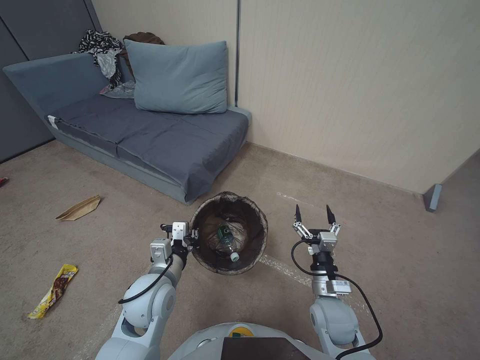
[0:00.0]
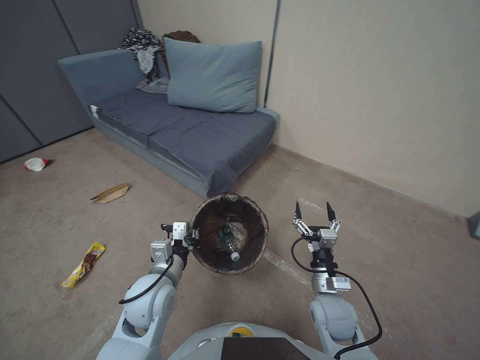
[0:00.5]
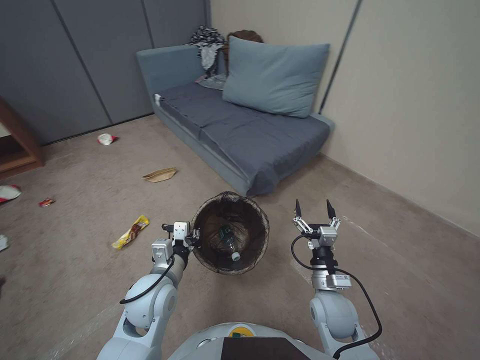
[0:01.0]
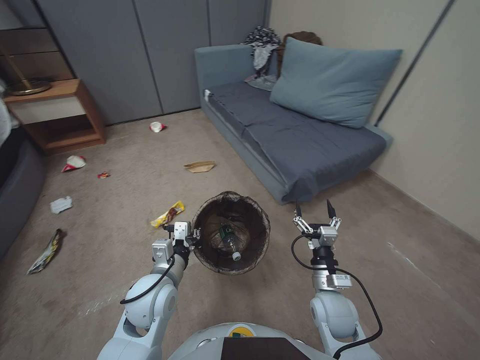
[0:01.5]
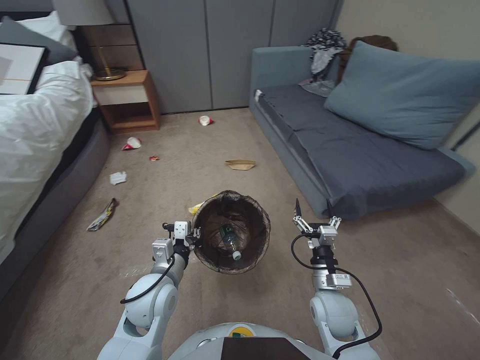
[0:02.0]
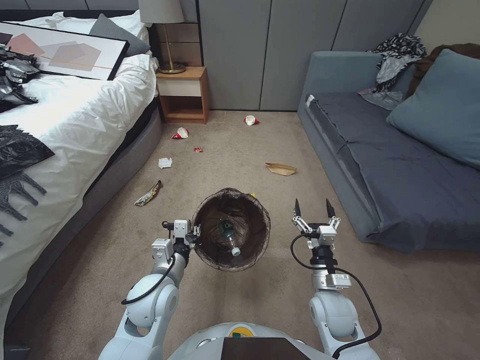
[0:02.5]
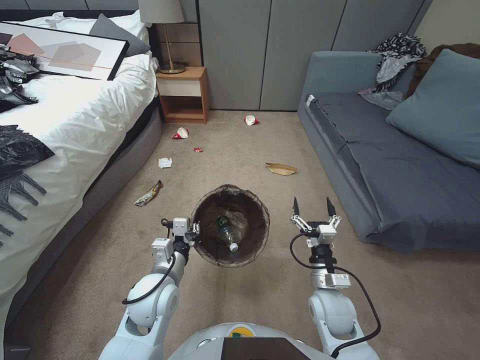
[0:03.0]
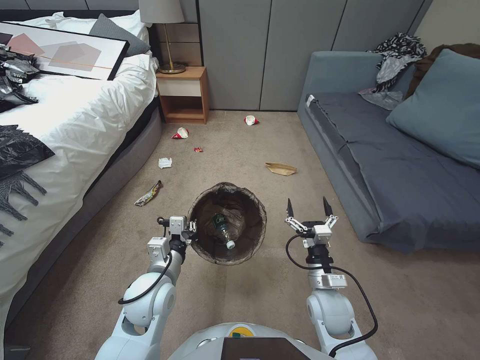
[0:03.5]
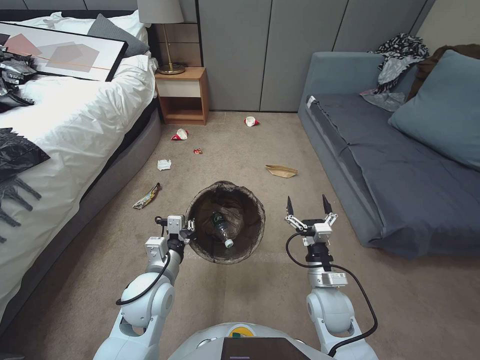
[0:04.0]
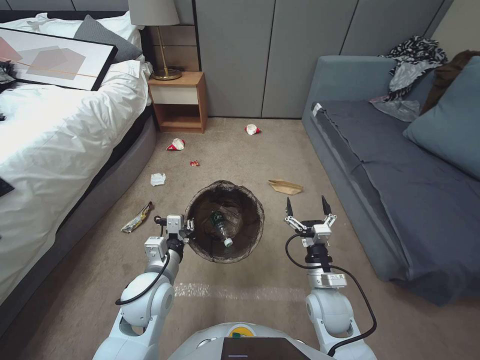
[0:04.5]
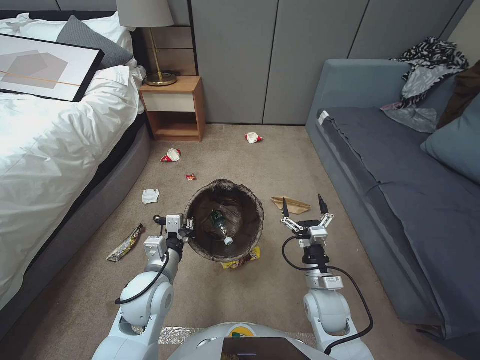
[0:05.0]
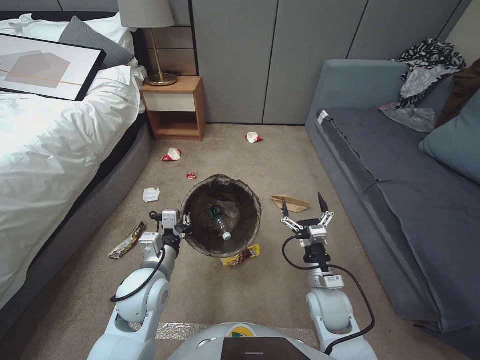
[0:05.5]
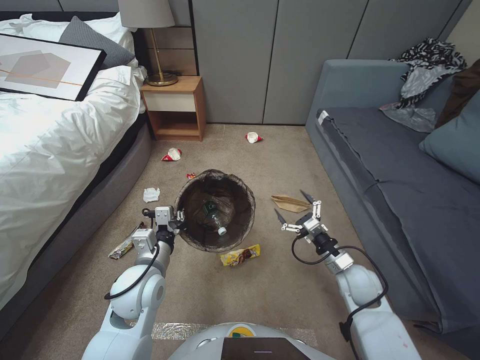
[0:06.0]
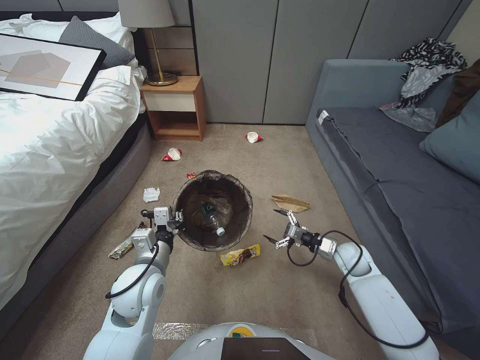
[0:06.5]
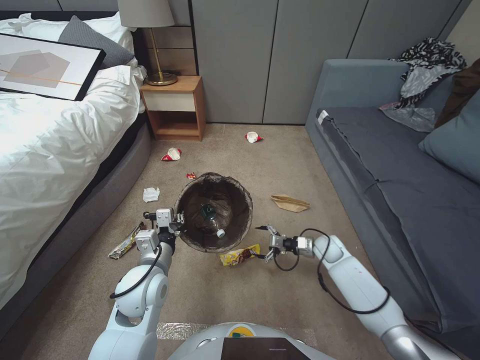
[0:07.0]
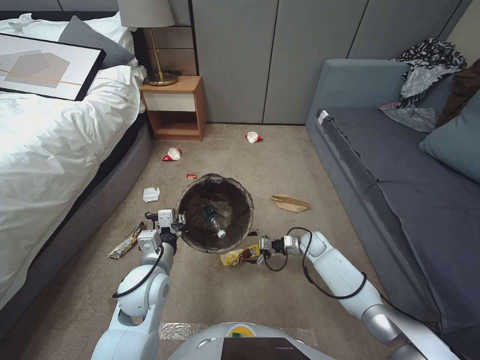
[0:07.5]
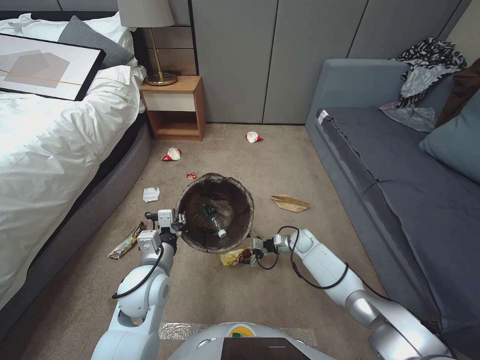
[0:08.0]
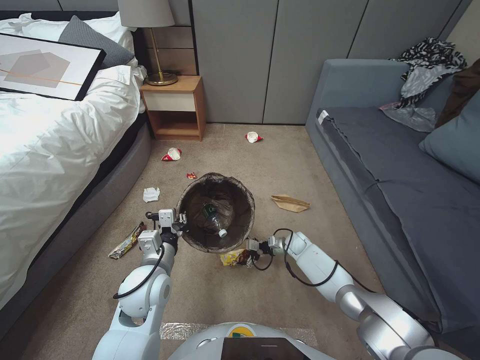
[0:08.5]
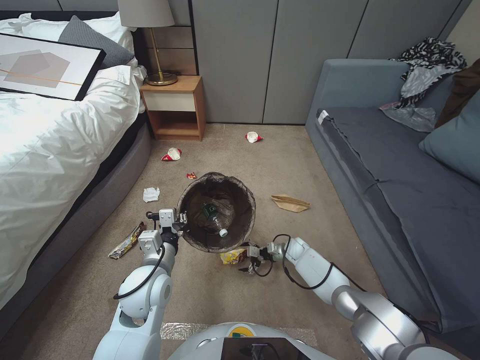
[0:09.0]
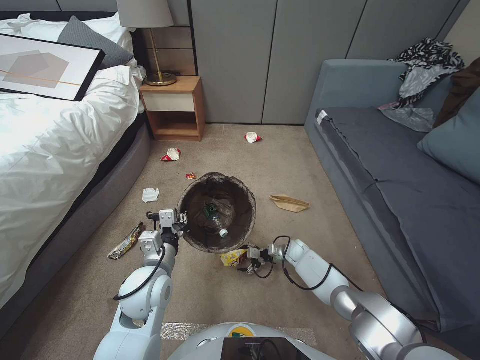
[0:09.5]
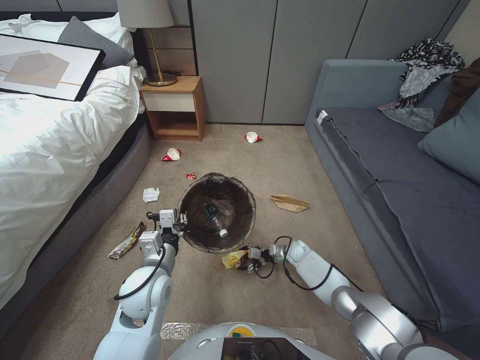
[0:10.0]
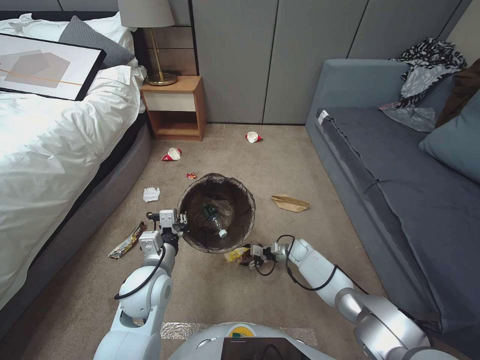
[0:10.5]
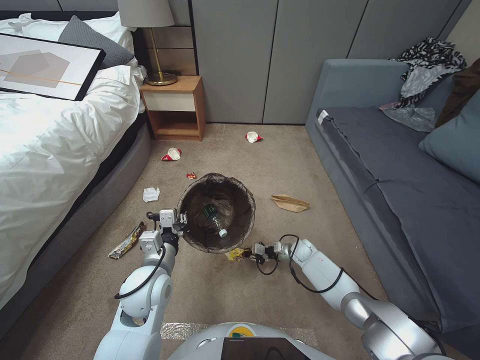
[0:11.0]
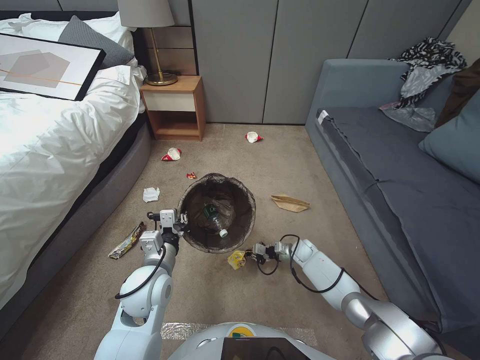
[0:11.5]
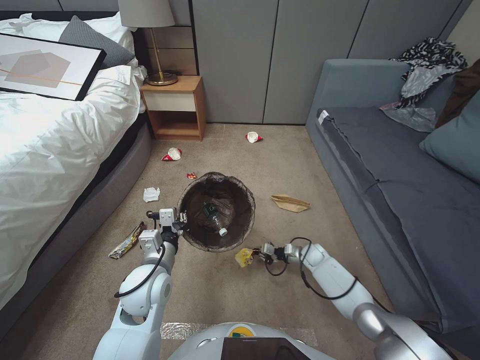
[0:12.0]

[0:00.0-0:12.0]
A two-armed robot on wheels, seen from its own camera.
Task of the whole recording: Pick up the trash bin, then pick up the garbage from the floor and place it into the trash bin.
0:04.0 to 0:06.0: The right gripper moves to the right, roughly 10 cm.
0:06.0 to 0:08.0: The right gripper moves forward and downward, approximately 20 cm.
0:08.0 to 0:10.0: The right gripper goes roughly 10 cm downward.
0:10.0 to 0:12.0: The right gripper closes its fingers.

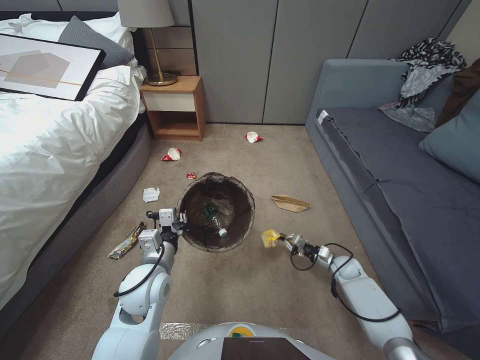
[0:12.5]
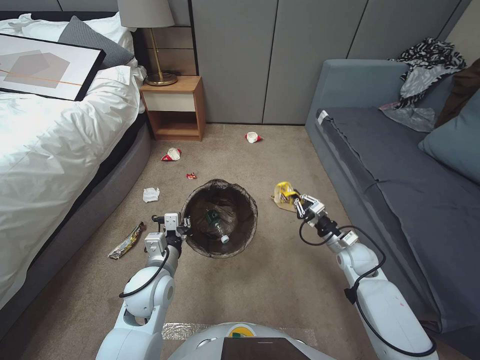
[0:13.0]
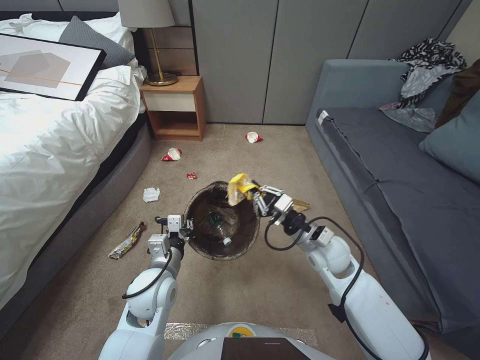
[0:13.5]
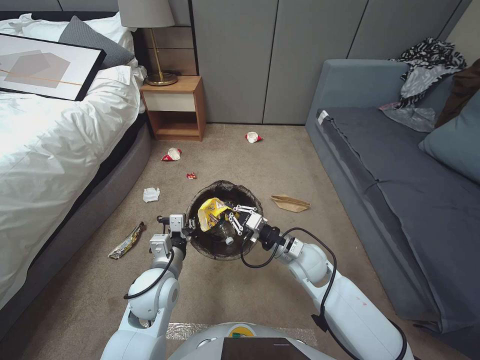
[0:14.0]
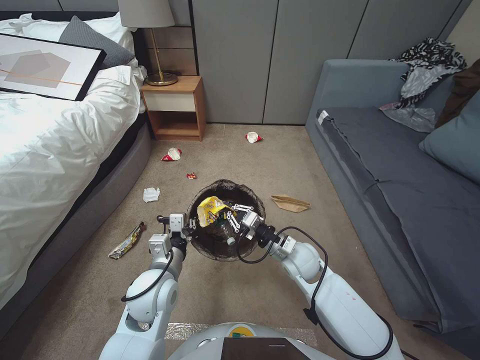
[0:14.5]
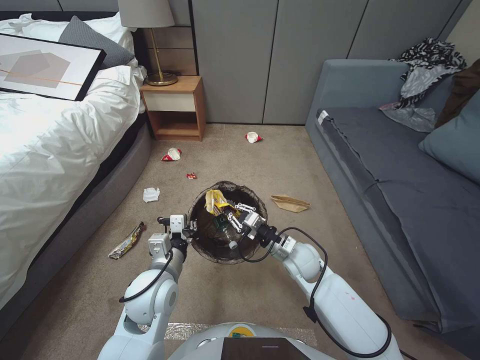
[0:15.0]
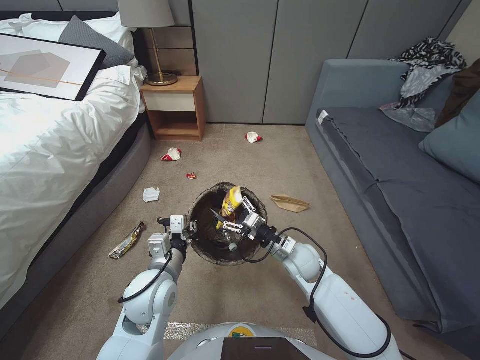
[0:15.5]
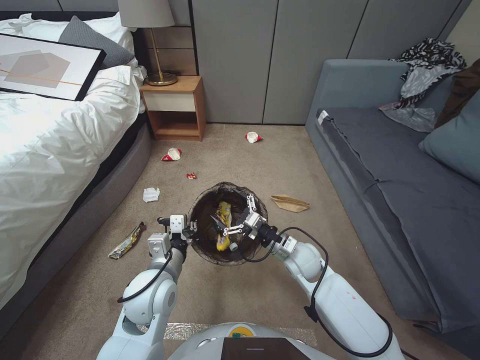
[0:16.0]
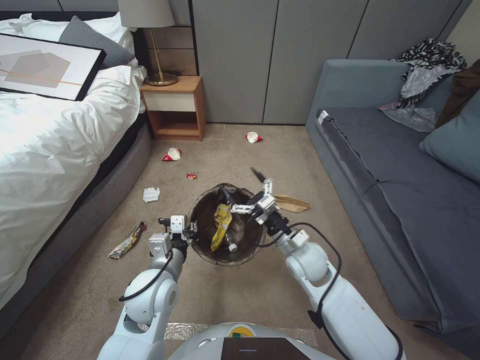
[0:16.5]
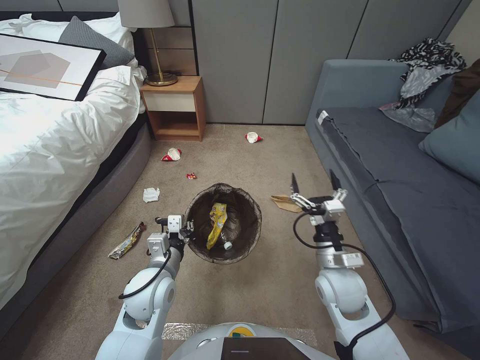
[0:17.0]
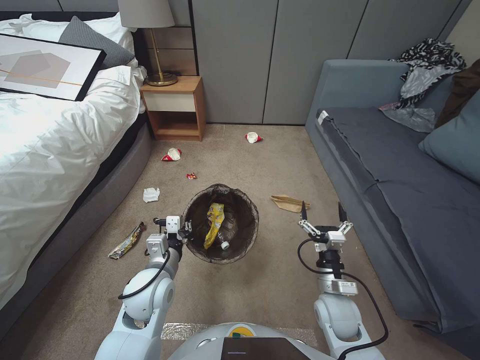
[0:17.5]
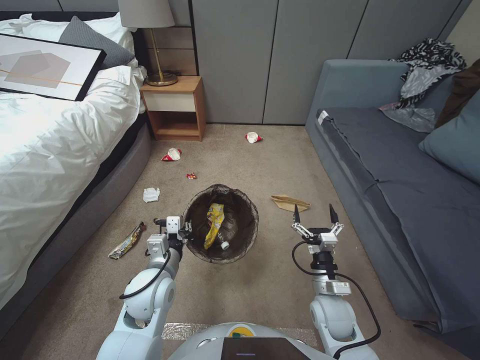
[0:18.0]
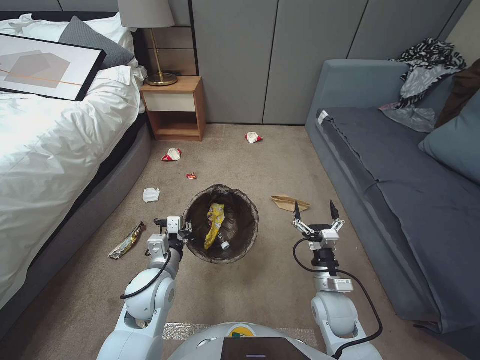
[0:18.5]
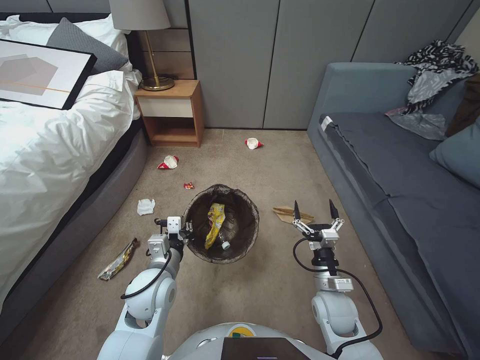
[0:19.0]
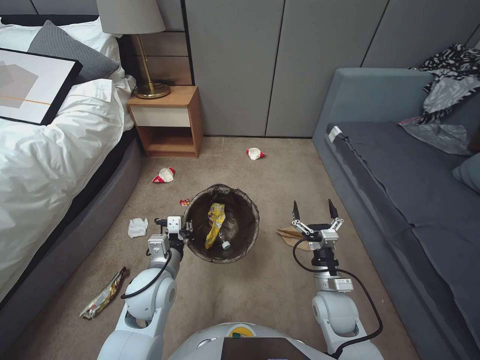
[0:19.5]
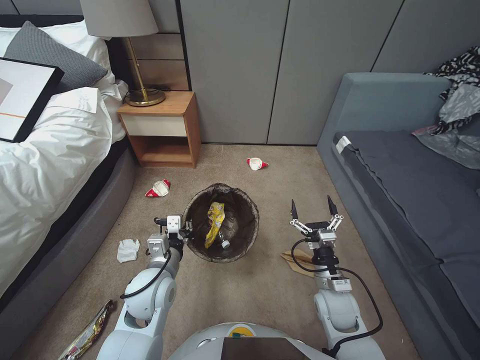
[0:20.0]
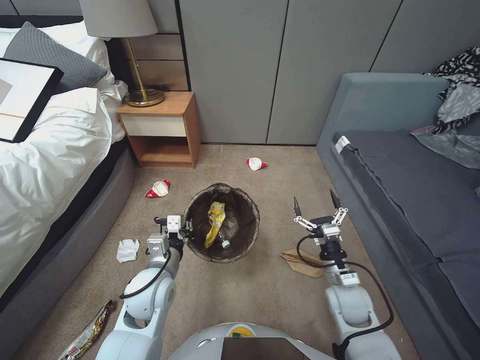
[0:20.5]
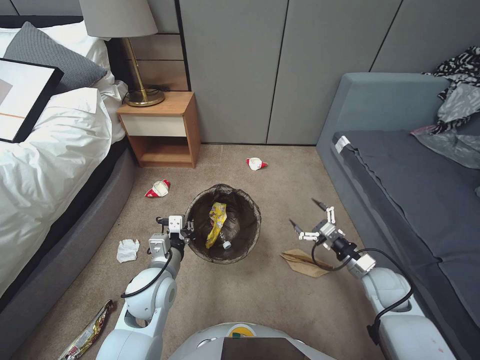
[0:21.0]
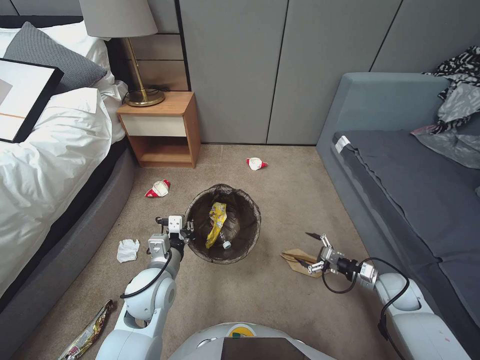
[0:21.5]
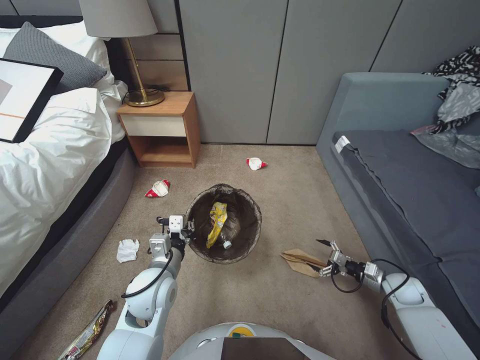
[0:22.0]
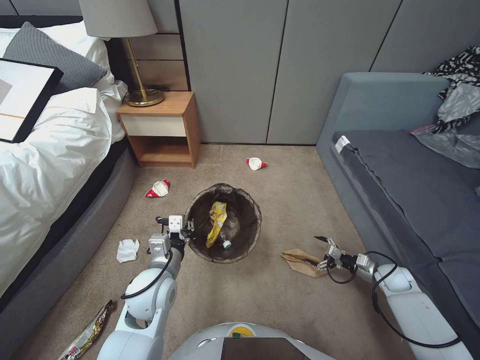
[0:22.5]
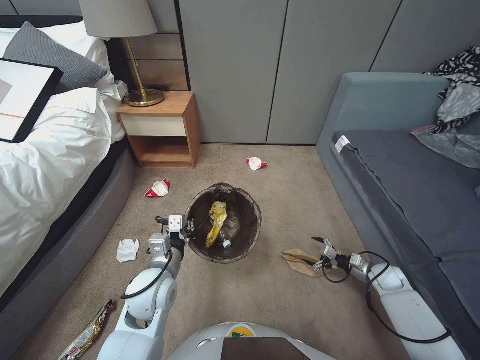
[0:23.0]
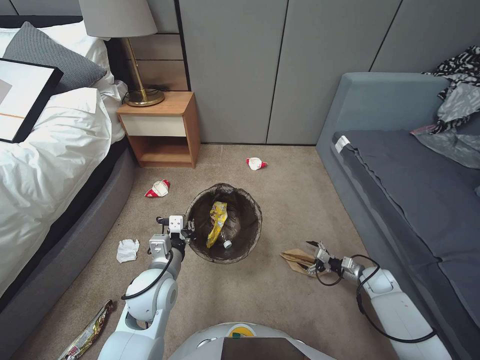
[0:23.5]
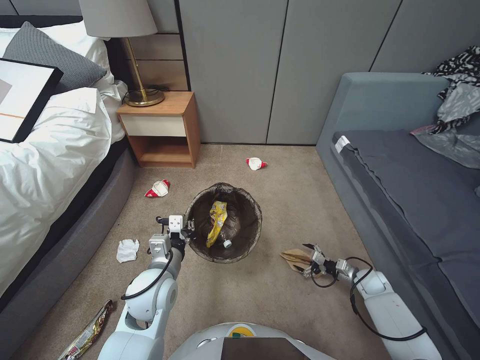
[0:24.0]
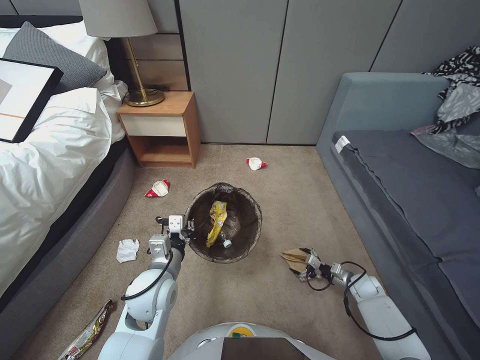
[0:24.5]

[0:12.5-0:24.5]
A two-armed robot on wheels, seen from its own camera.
Task of the whole recording: Pick up the trash bin, then pick up the garbage from the floor and place it into the trash bin.
0:12.5 to 0:14.5: The right gripper shifts roughly 30 cm to the left and upward.
0:14.5 to 0:16.5: The right gripper opens its fingers.
0:16.5 to 0:18.5: The right gripper is displaced backward, downward and to the right by roughly 15 cm.
0:20.5 to 0:22.5: The right gripper shifts roughly 25 cm to the right.
0:22.5 to 0:24.5: The right gripper heads downward and to the left, covering approximately 10 cm.

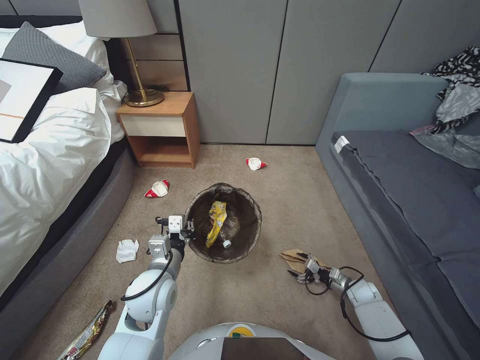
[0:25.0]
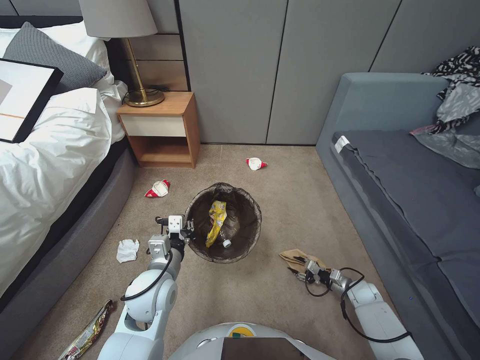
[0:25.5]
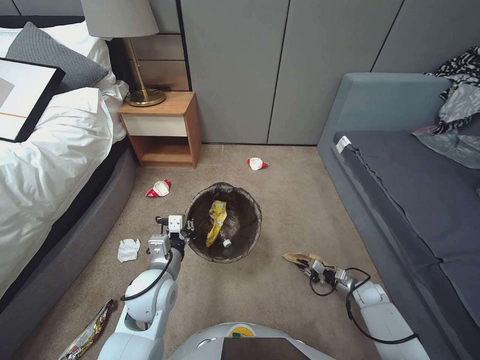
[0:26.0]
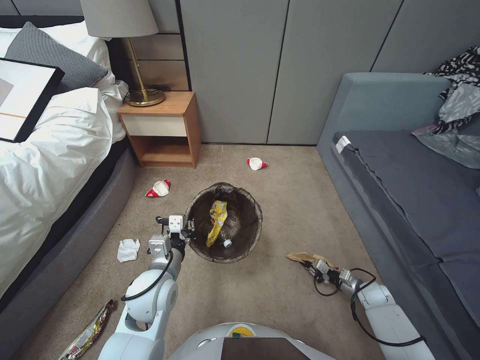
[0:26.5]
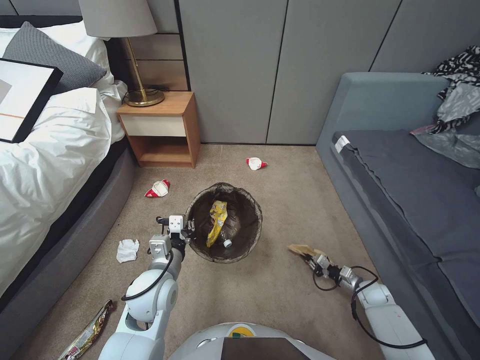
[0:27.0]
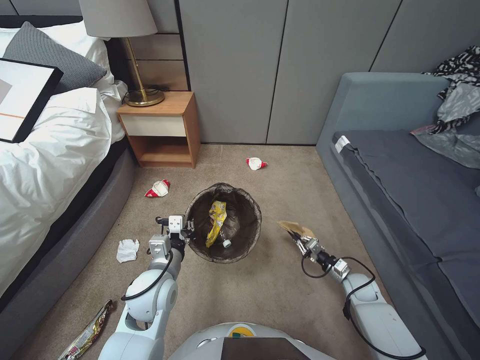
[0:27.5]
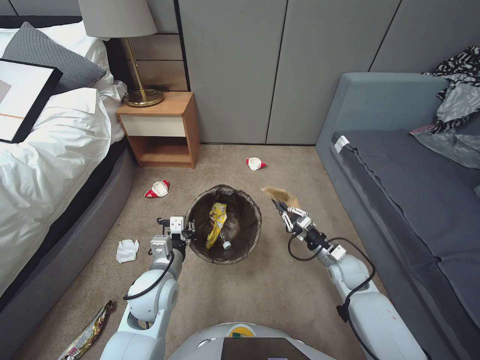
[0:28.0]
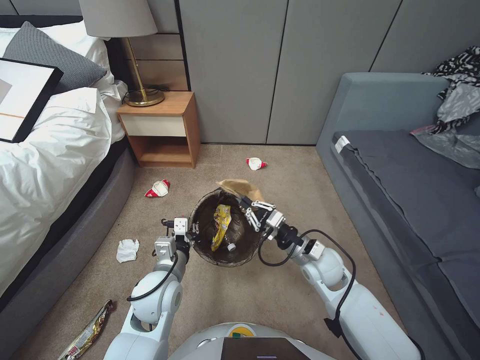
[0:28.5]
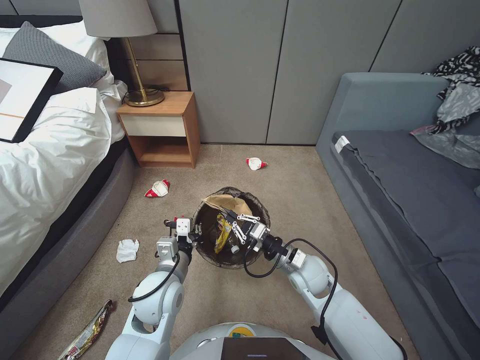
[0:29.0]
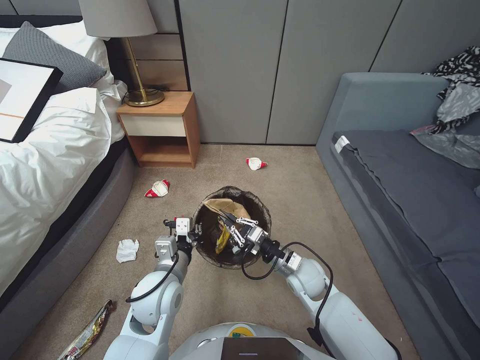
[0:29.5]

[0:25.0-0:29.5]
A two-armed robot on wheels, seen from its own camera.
Task of the whole recording: Pick up the trash bin, then pick up the garbage from the floor and place it into the trash bin.
0:25.0 to 0:27.0: The right gripper closes.
0:27.0 to 0:29.5: The right gripper moves to the left and upward, some 35 cm.
